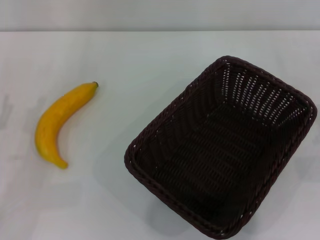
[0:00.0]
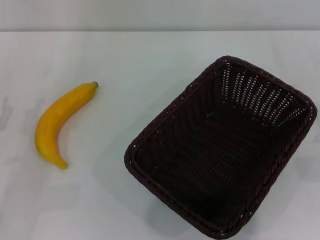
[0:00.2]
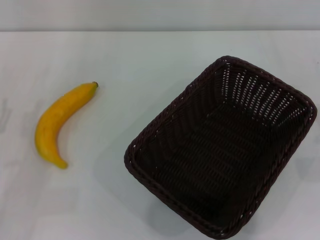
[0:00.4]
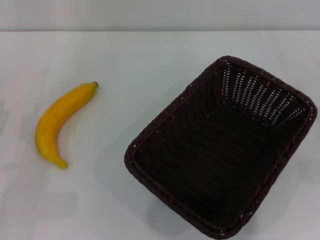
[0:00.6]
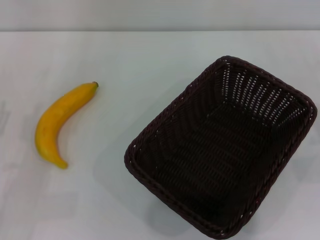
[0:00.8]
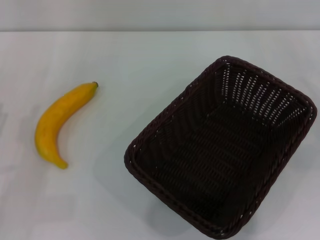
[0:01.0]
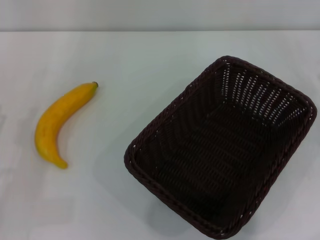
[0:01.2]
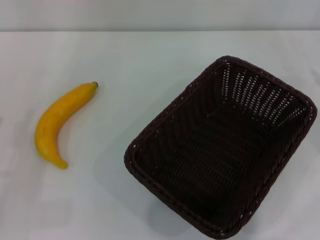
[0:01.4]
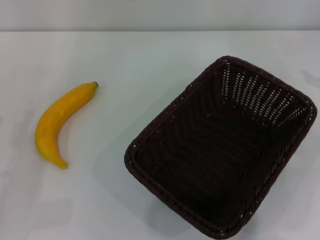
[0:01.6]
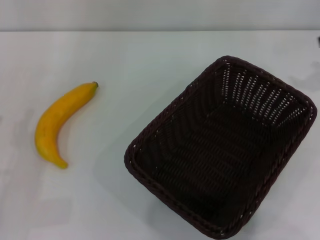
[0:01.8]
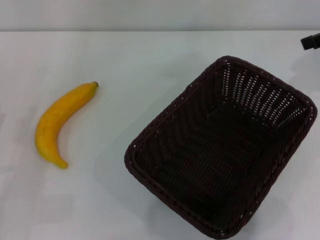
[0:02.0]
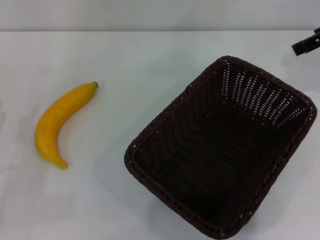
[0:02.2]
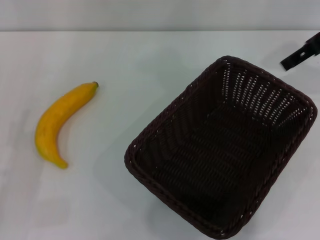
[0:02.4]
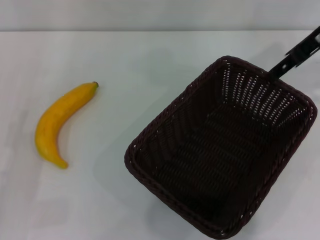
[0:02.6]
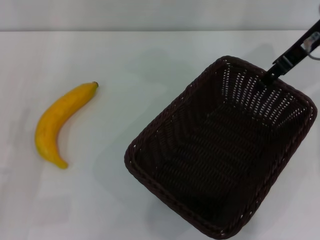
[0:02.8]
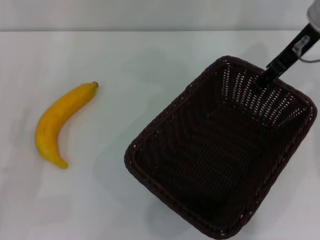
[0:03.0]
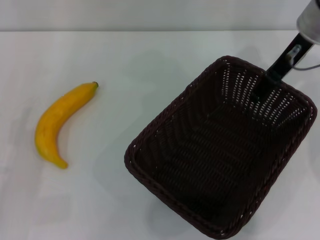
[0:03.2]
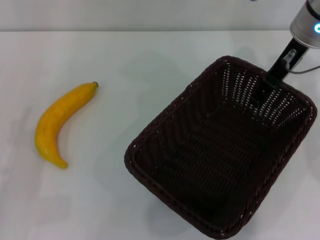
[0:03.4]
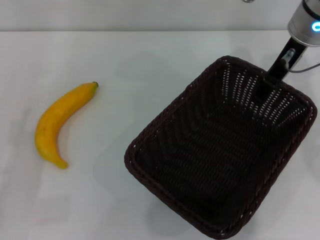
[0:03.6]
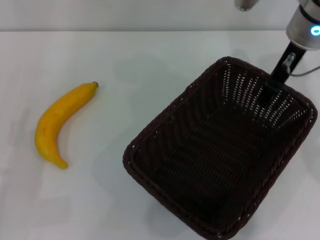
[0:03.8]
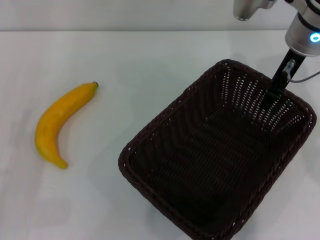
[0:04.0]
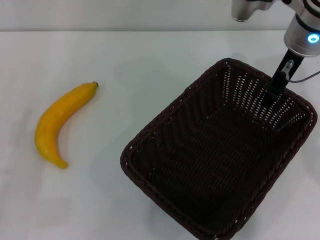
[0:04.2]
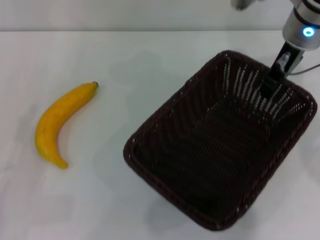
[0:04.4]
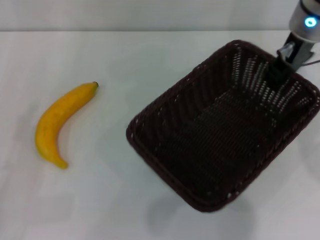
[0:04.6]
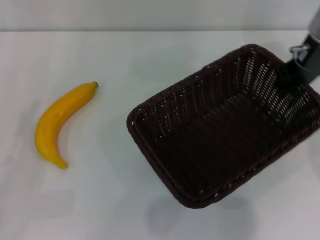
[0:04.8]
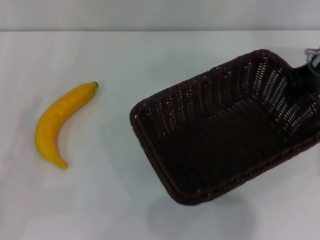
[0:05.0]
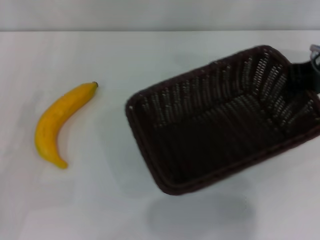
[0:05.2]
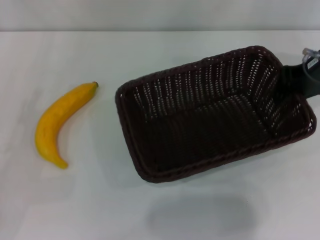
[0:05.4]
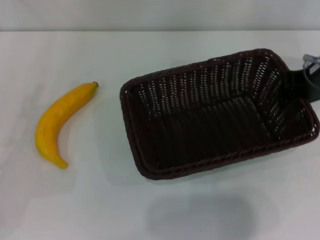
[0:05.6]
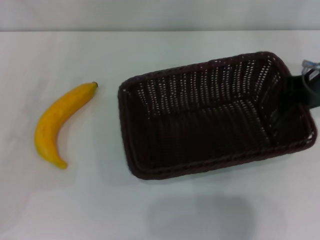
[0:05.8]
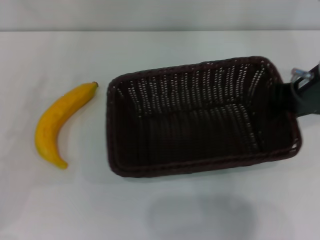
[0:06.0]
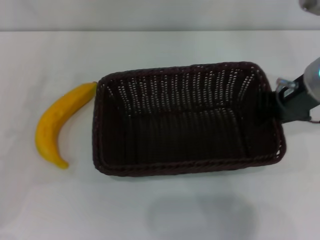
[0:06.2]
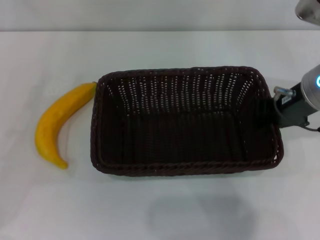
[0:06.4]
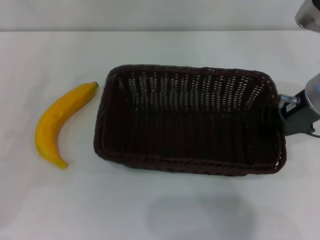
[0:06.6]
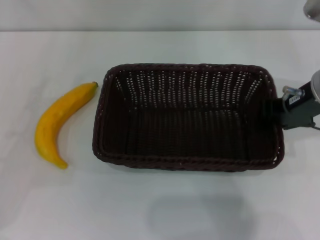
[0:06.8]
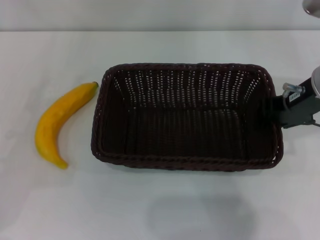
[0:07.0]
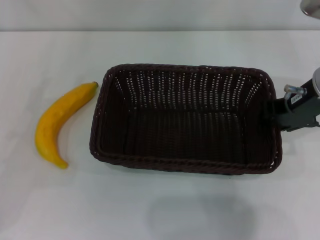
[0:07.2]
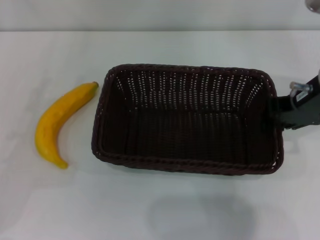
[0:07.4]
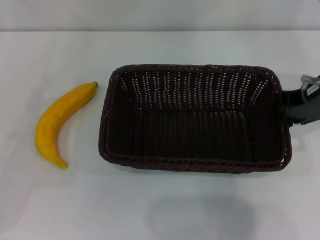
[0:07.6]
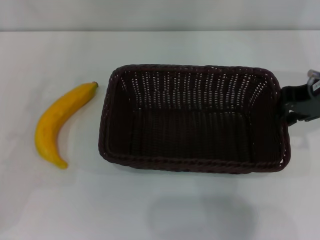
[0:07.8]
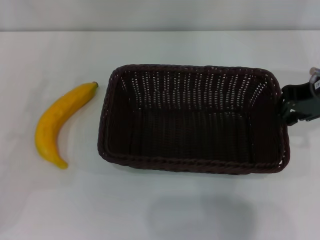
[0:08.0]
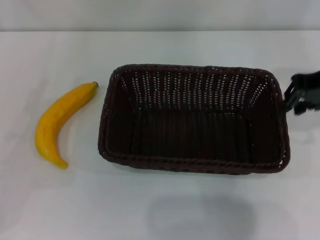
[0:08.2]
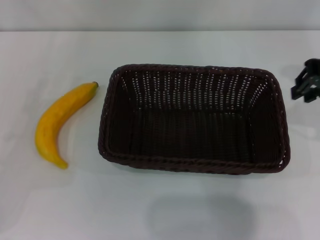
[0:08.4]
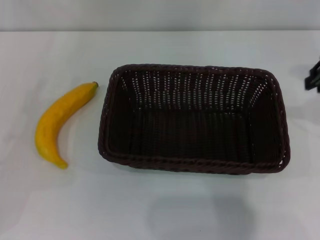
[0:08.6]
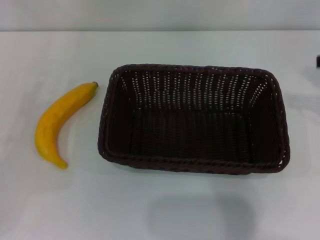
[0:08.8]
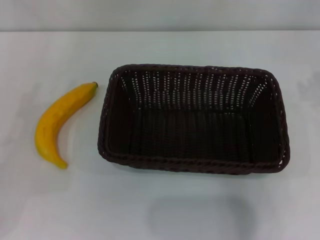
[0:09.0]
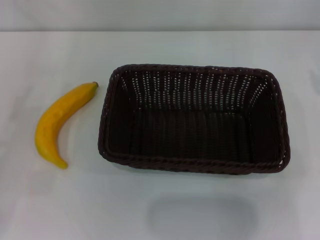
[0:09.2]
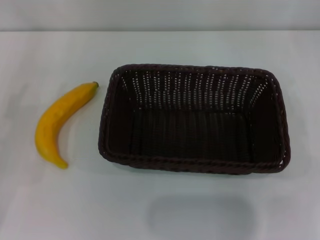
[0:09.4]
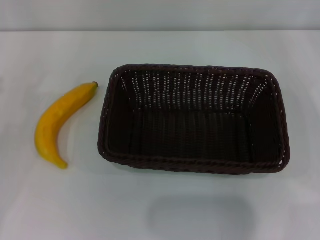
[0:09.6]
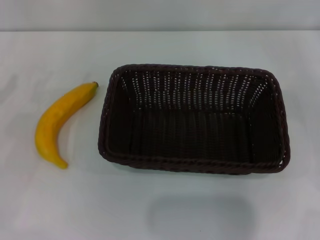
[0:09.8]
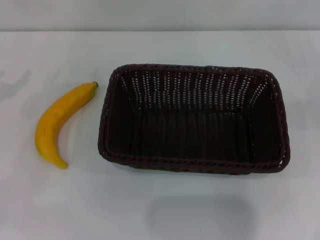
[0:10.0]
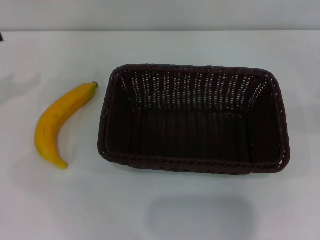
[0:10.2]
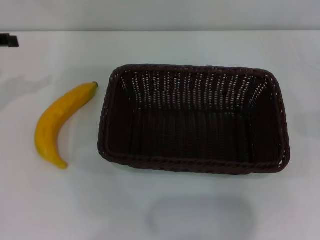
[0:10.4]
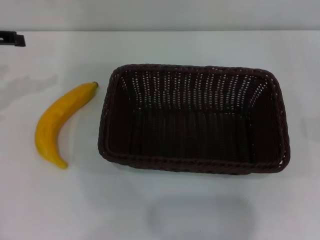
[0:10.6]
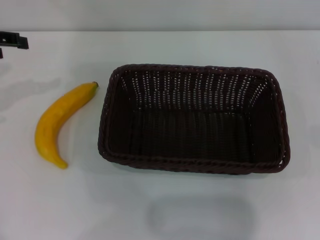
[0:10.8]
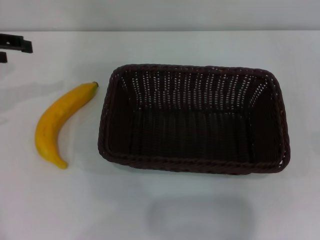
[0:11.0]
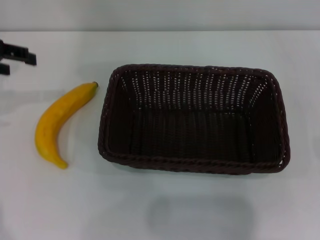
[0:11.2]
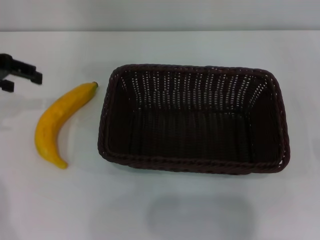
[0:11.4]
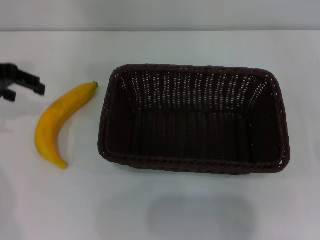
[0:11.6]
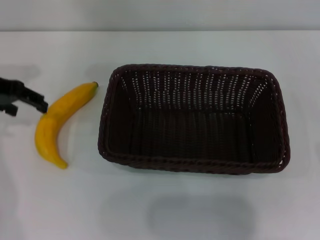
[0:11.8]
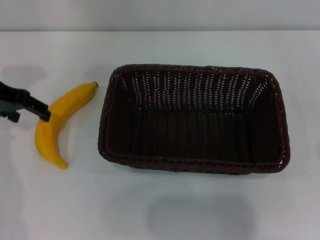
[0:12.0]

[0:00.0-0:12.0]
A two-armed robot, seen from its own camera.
Step, 0:00.0 to 0:04.2: Pick up the dark basket with the right gripper.
Step, 0:04.4 to 0:08.2: Place the dark basket in the center of view with the right gripper.
0:01.6 to 0:03.0: The right gripper moves to the left, about 20 cm.
0:03.0 to 0:04.4: The right gripper closes up.
0:04.4 to 0:06.0: The left gripper travels forward by approximately 5 cm, while the right gripper moves backward, approximately 10 cm.
0:06.0 to 0:07.6: The grippers move only a little.
0:07.6 to 0:09.0: The right gripper travels to the right by some 10 cm.
0:10.4 to 0:12.0: The left gripper moves to the right, some 5 cm.

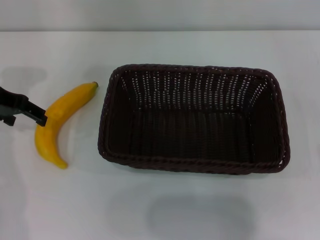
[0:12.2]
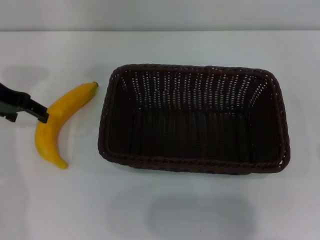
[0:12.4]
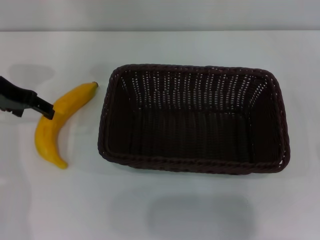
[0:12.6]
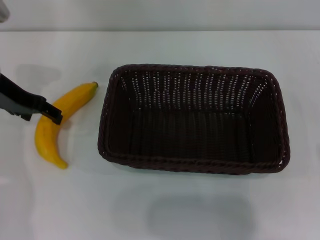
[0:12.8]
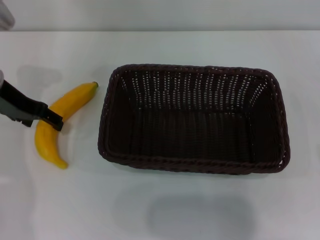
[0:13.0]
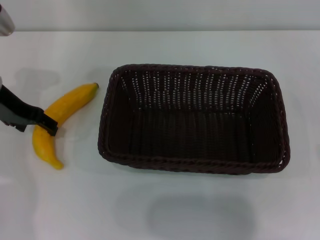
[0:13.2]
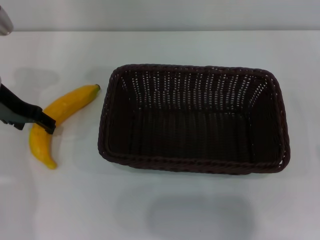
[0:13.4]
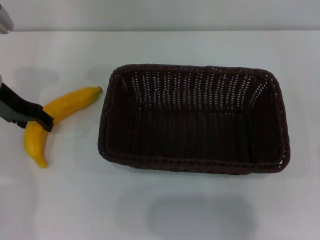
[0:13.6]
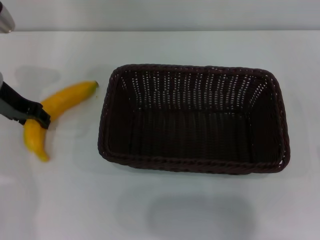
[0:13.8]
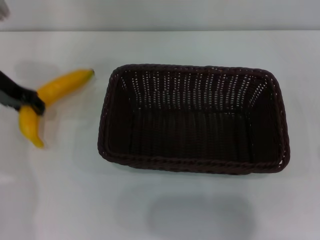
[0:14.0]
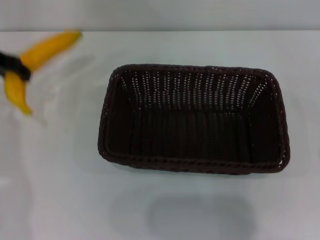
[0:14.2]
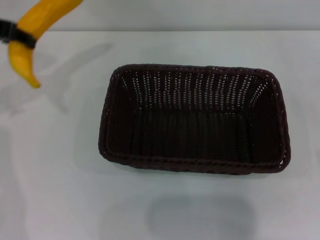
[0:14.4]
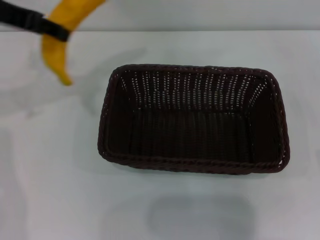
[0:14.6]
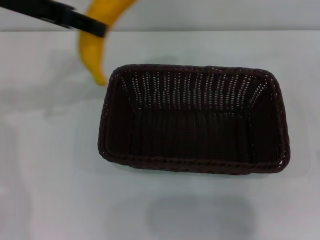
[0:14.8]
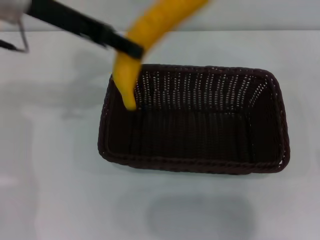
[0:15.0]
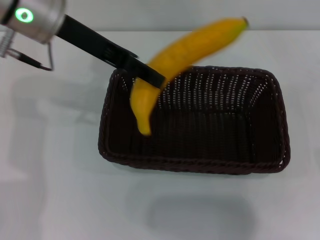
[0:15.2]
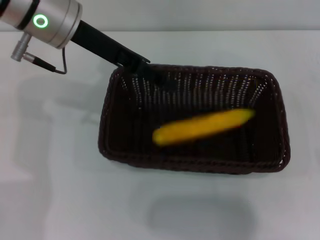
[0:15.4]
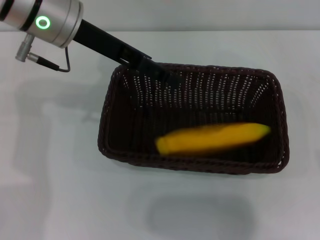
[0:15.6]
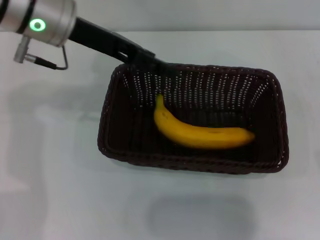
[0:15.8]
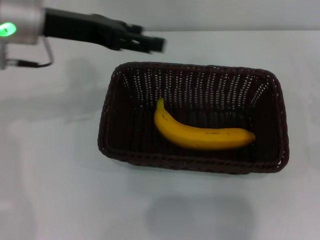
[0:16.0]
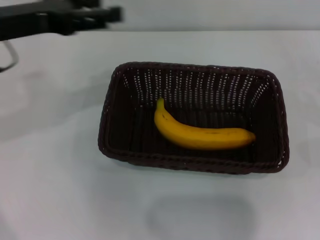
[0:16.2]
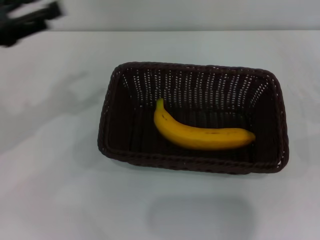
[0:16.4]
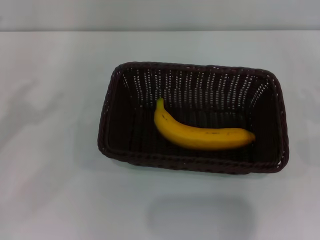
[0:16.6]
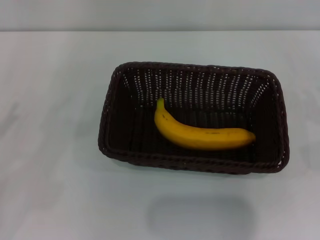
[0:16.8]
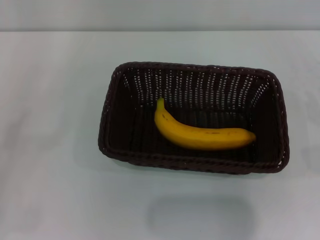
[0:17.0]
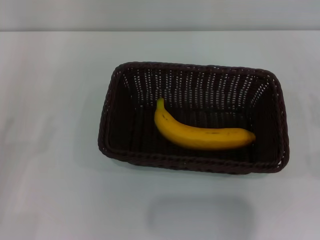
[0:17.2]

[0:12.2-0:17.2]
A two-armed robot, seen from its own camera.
Step, 0:14.2 to 0:15.2: Place the banana into the dark basket with the left gripper.
0:12.2 to 0:13.8: The left gripper closes up.
0:13.8 to 0:15.6: The left gripper is displaced to the right and upward by some 15 cm.
0:15.6 to 0:17.2: The left gripper travels to the left, backward and downward by some 35 cm, and opens up.

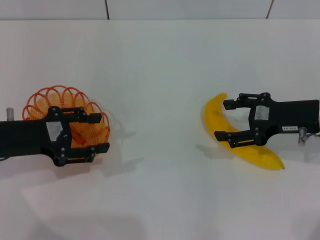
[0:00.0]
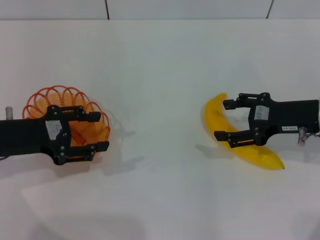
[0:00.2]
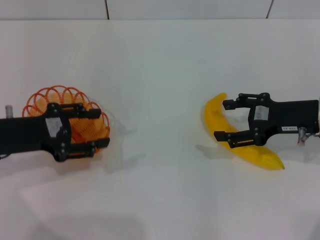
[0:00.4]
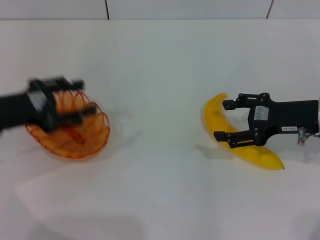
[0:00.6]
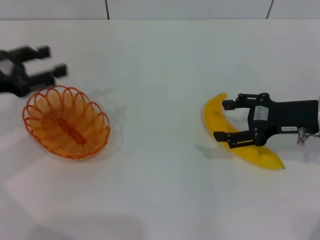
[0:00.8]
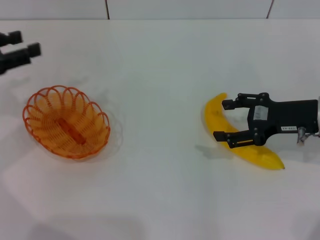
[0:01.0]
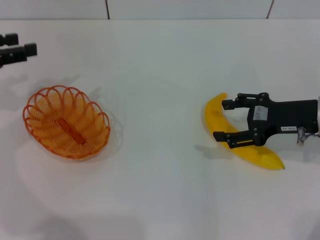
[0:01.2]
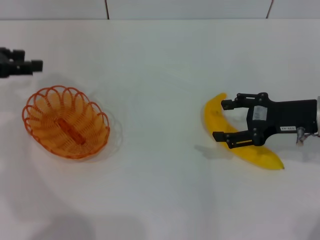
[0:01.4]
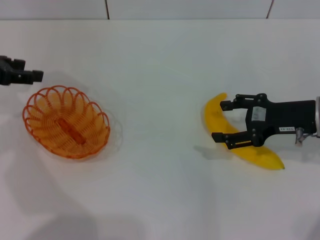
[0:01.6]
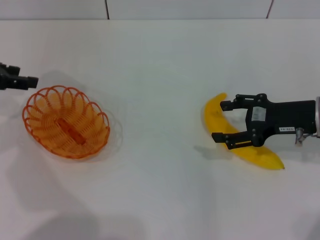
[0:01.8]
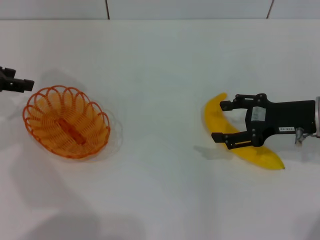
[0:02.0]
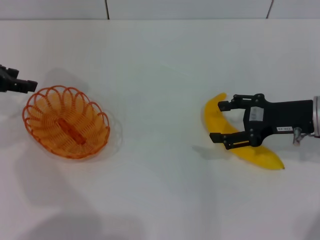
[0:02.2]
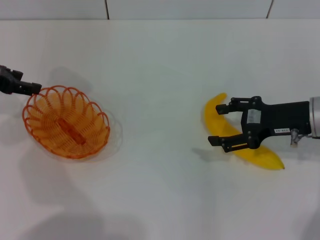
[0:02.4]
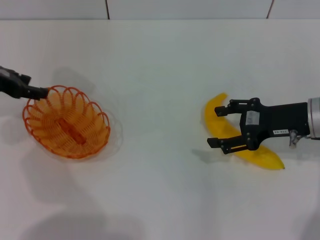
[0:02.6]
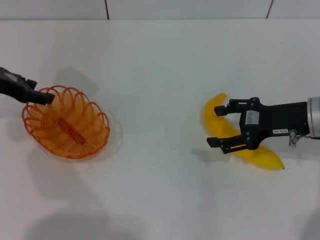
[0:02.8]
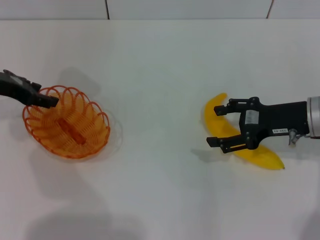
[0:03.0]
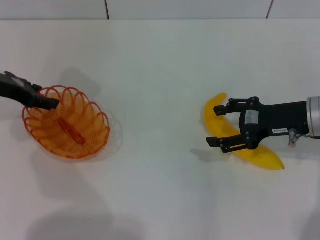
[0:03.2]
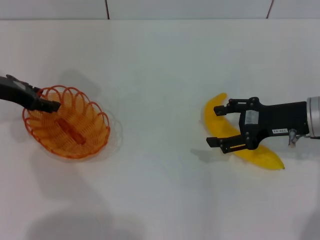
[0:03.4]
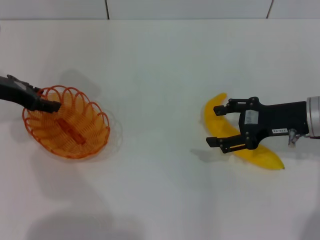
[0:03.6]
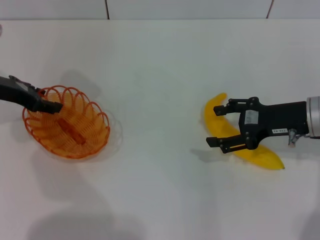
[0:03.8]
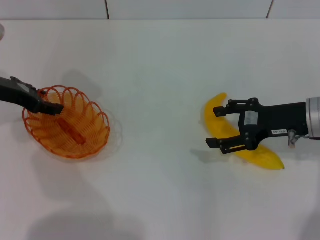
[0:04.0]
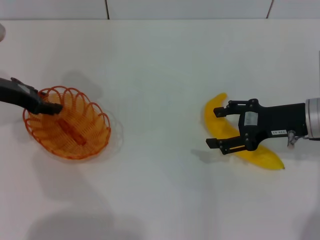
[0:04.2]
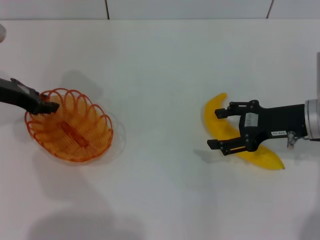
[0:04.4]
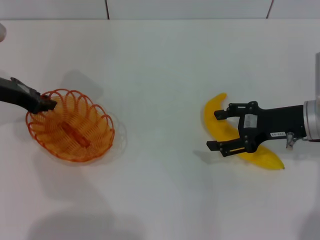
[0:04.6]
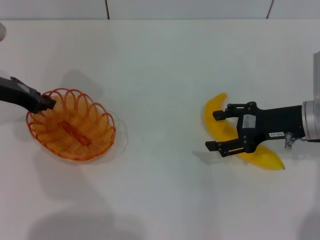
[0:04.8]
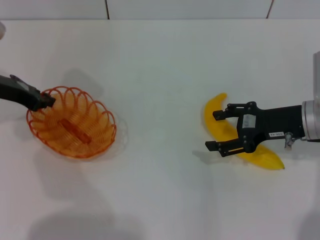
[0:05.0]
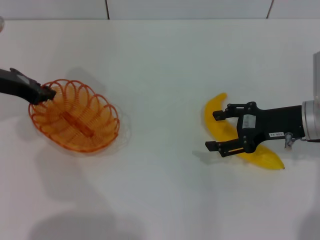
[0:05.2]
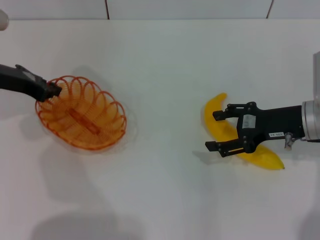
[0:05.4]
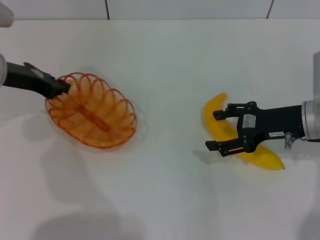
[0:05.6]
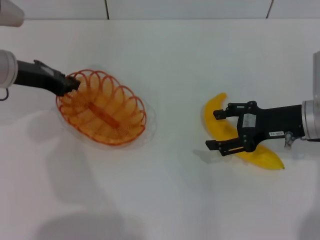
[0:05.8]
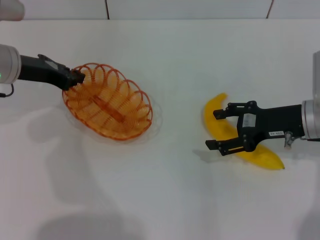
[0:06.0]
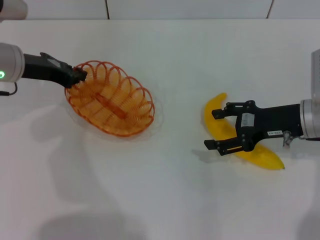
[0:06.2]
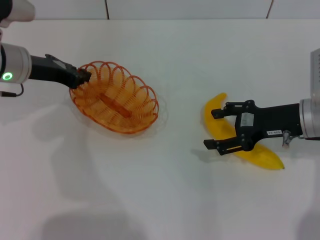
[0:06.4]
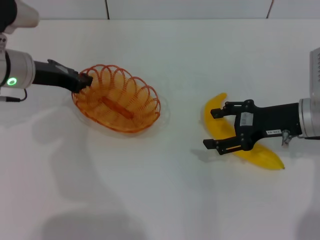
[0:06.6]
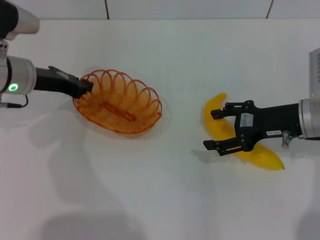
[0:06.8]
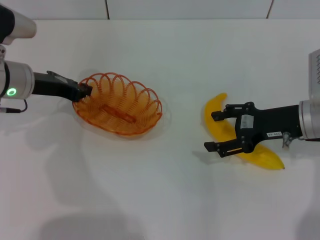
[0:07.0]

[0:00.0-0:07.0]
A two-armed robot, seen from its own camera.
Step, 0:00.0 to 0:05.4: Pick up the basket with the left gripper.
0:00.0 to 0:01.4: The left gripper heads upward, forward and to the left, covering roughly 10 cm.
0:01.4 to 0:02.8: The left gripper shifts by roughly 5 cm.
0:02.8 to 0:04.2: The grippers make only small movements.
0:04.2 to 0:05.6: The left gripper closes.
0:05.6 to 0:07.0: There are only small adjustments of the grippers.
